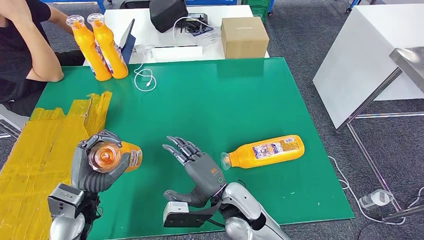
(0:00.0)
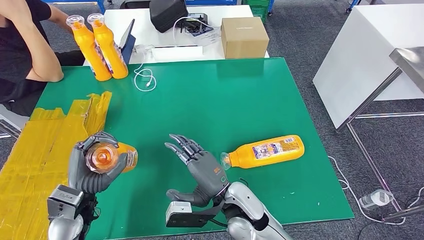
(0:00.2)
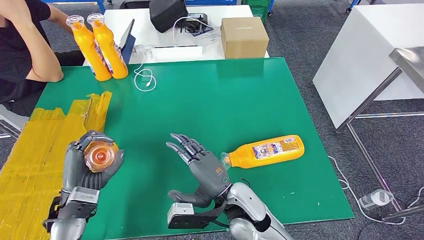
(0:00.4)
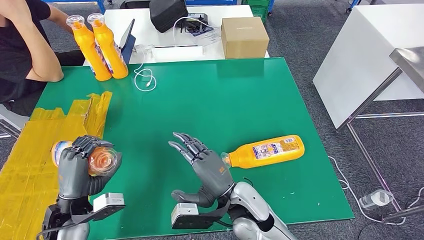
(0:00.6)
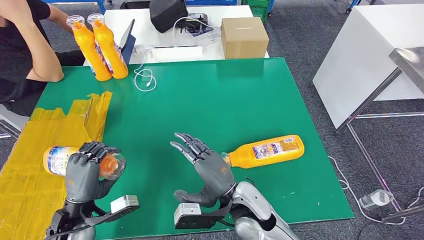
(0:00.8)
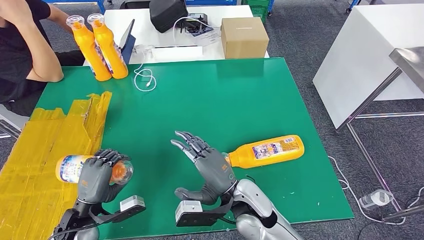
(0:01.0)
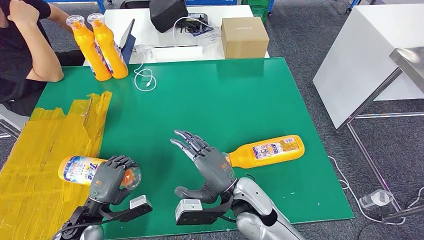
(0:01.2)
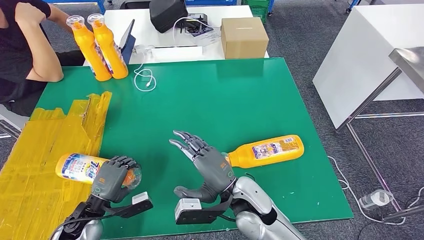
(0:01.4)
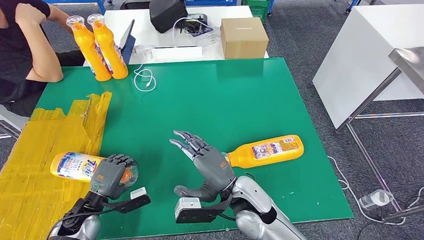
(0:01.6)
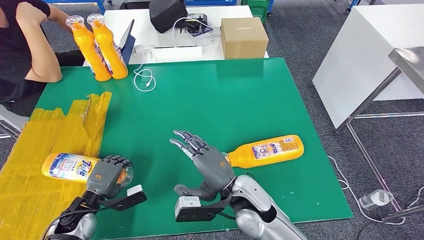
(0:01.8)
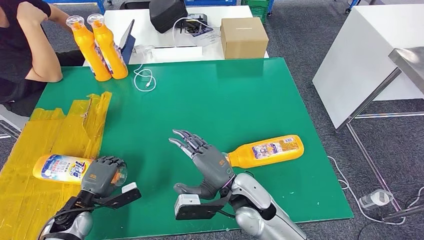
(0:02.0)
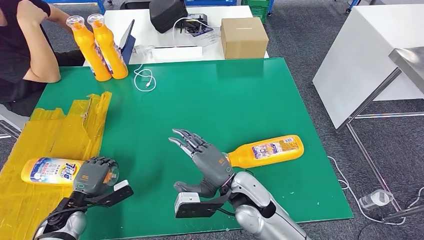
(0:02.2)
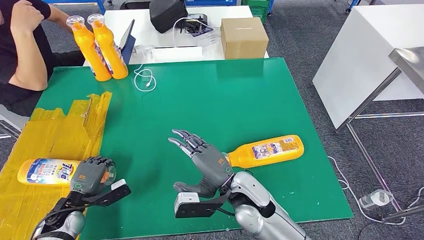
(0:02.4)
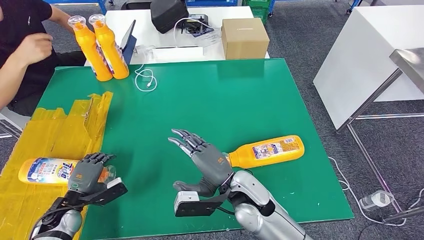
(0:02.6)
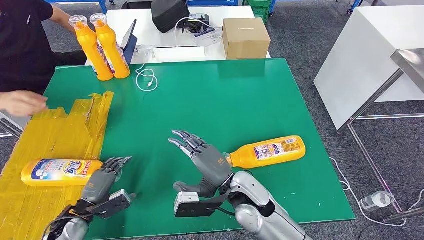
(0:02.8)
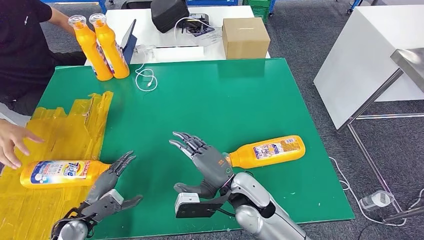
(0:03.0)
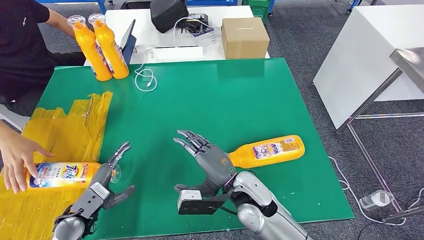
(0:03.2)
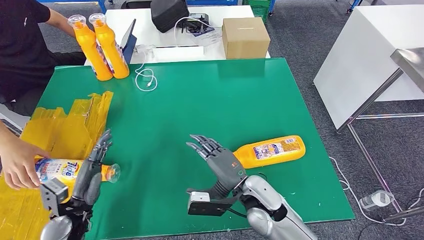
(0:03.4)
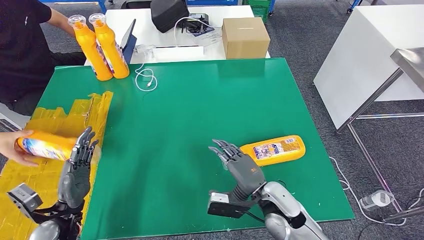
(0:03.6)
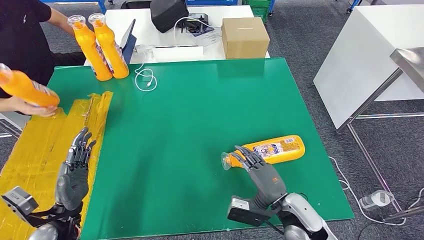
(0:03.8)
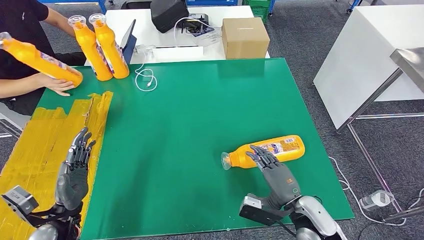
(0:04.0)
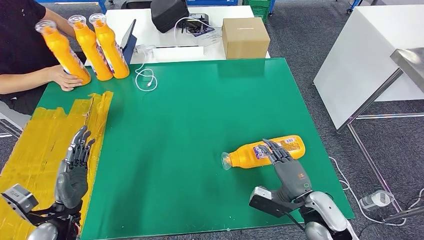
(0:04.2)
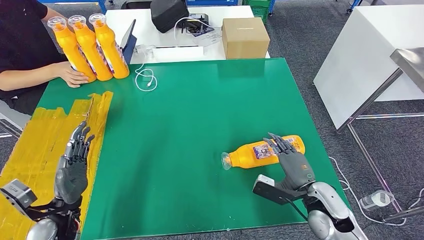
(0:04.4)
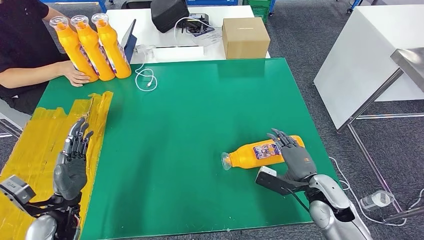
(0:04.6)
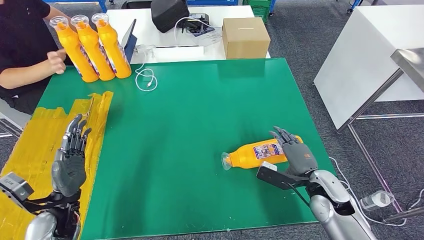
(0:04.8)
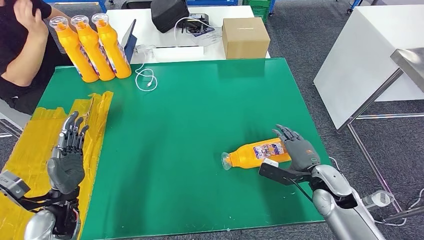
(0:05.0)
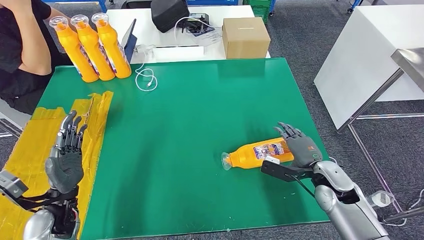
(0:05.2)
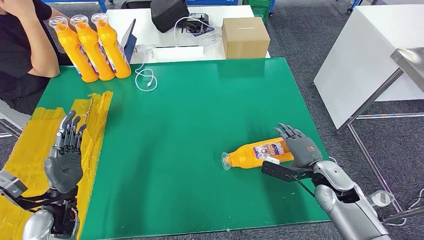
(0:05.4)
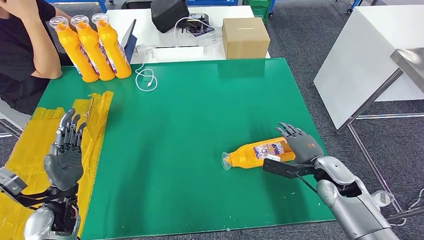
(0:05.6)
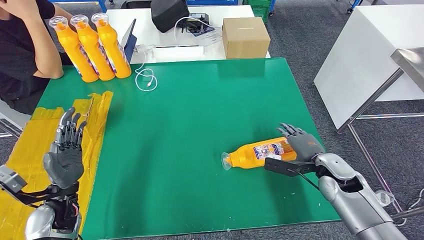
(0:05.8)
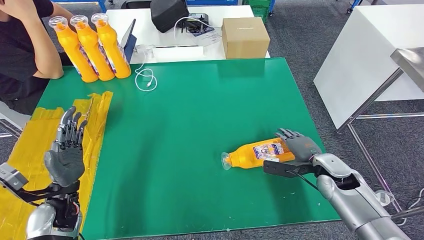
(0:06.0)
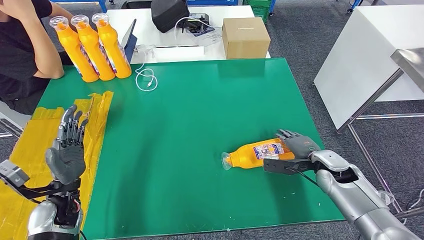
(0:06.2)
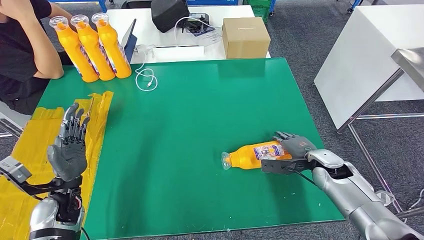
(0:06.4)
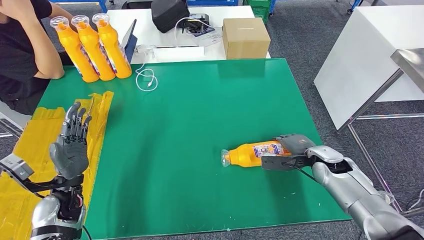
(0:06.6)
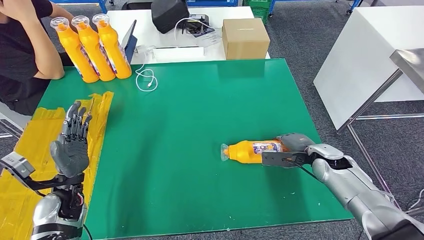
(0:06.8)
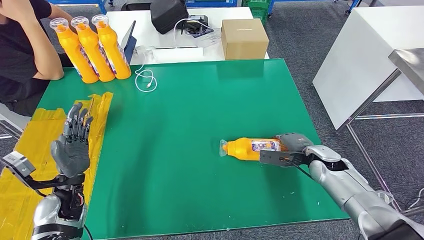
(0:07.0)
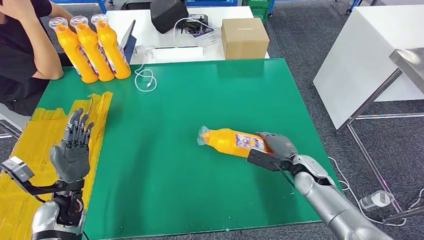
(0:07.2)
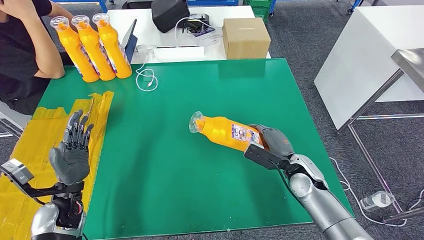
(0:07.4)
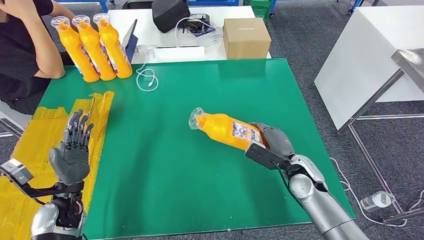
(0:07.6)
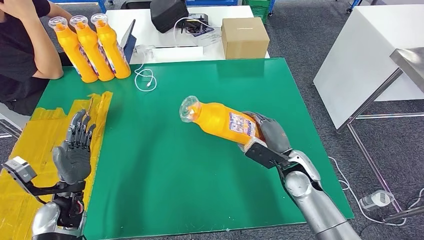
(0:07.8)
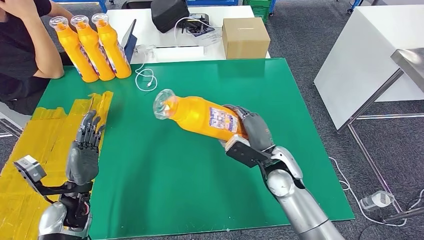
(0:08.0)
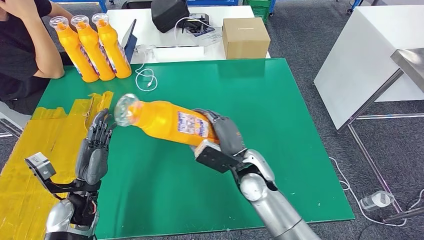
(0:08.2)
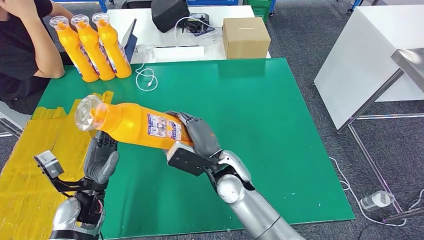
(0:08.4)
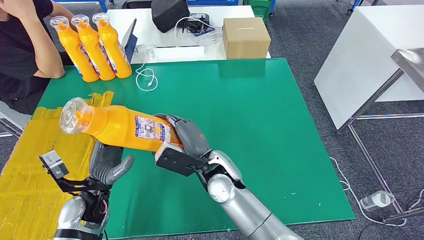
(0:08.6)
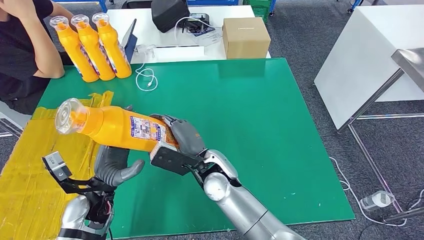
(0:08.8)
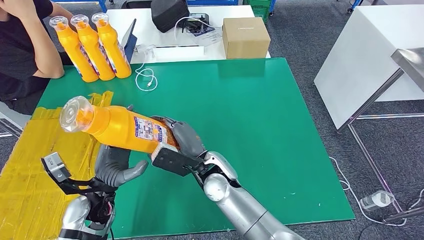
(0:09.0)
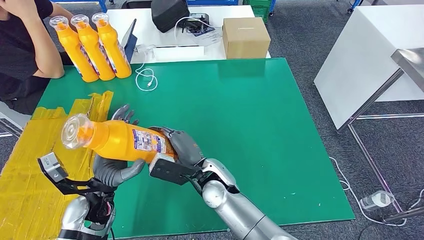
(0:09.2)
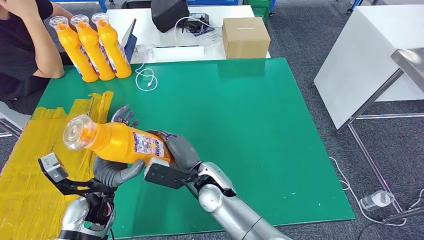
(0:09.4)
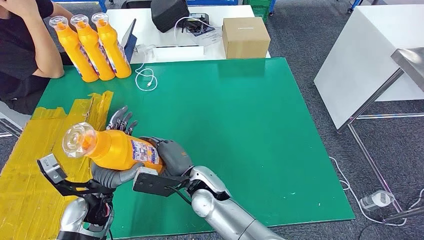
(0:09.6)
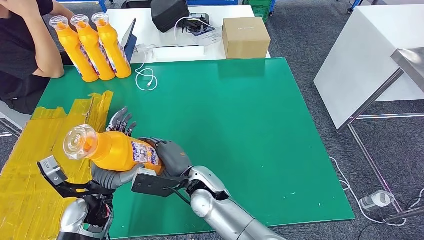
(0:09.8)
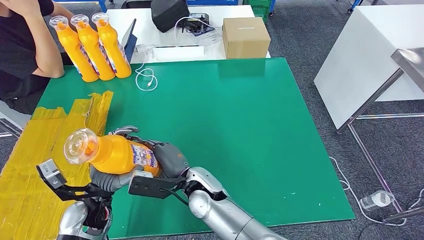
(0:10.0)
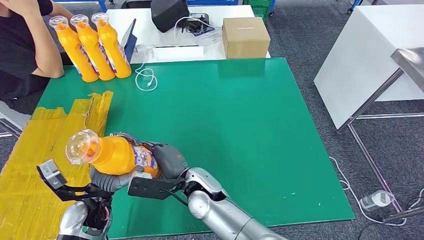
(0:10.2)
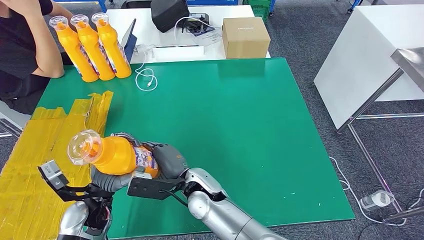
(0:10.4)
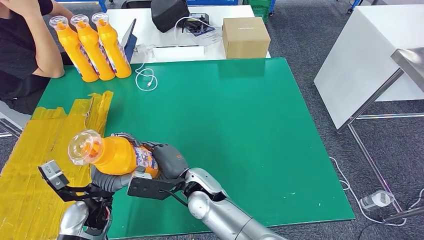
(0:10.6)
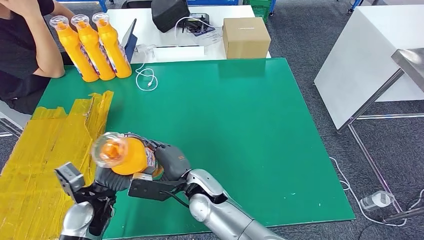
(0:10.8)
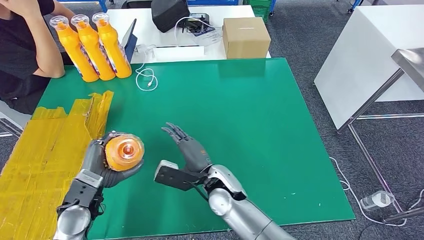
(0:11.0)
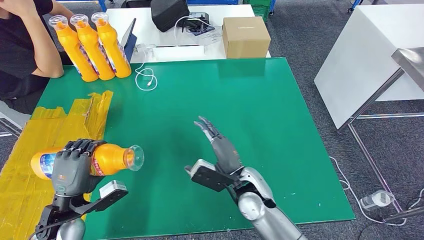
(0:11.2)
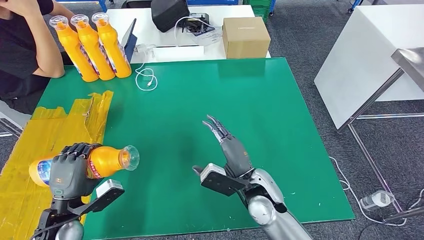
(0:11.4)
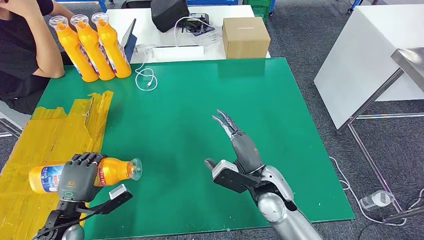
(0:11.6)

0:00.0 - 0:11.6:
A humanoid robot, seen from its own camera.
Step, 0:00.0 - 0:05.0: Flip the bottle to face forward.
Step, 0:05.6 - 0:10.8: Pick up the bottle from the table.
0:00.0 - 0:01.4: The left hand is displaced downward by some 10 cm.
0:01.4 - 0:02.8: The left hand moves to the left, roughly 5 cm.
0:04.4 - 0:05.8: The right hand moves forward and to the right, about 10 cm.
0:05.8 - 0:07.2: The right hand changes place by some 5 cm.
0:08.8 - 0:10.2: The right hand changes place by some 5 cm.
0:10.2 - 0:11.6: The right hand travels to the right by some 15 cm. The left hand goes approximately 10 cm to the left.

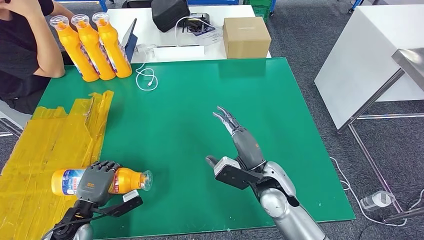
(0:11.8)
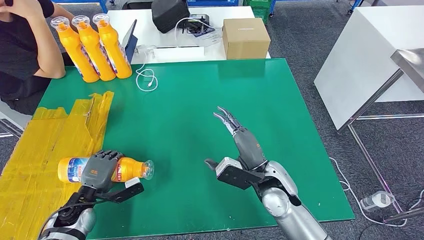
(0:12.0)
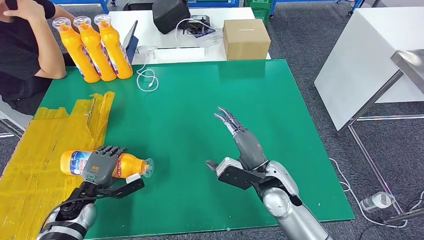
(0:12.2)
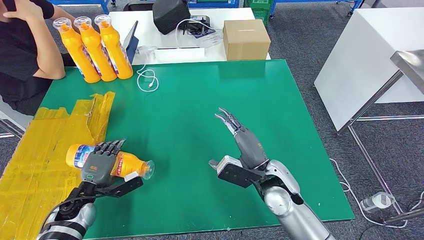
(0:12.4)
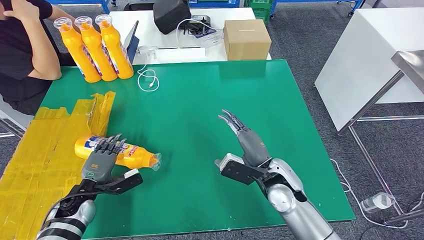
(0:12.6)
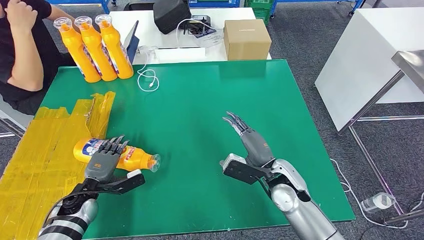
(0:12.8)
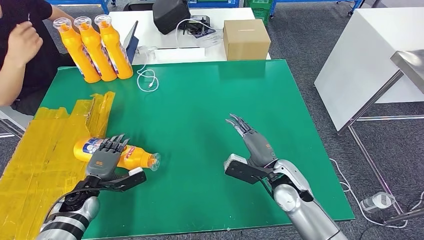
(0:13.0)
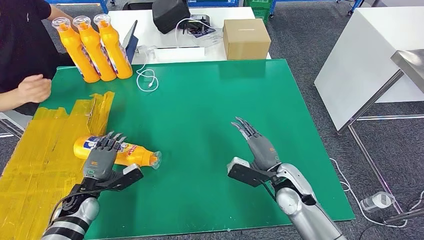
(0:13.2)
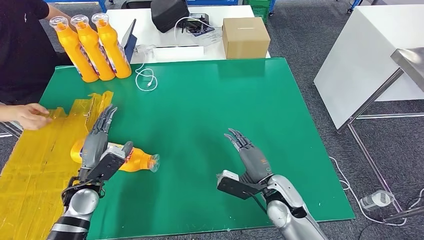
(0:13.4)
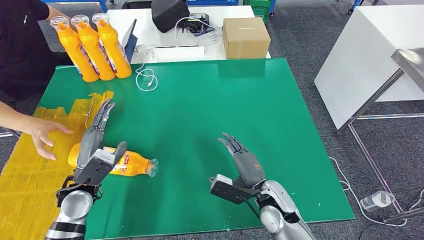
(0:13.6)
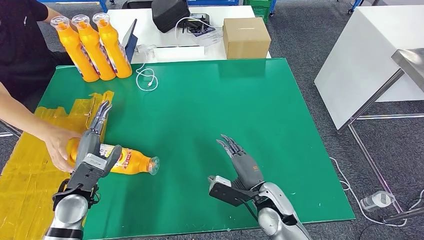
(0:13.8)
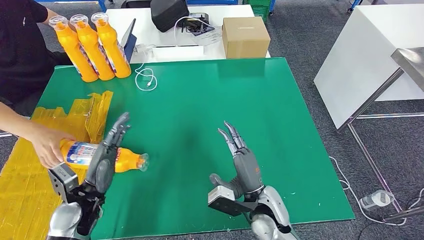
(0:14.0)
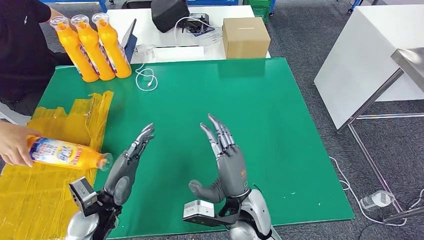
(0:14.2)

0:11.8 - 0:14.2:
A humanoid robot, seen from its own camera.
Step, 0:11.8 - 0:14.2: Flip the bottle to face forward.
